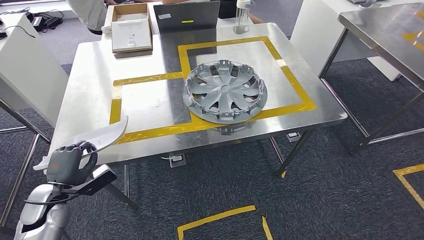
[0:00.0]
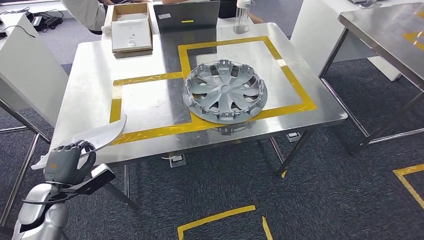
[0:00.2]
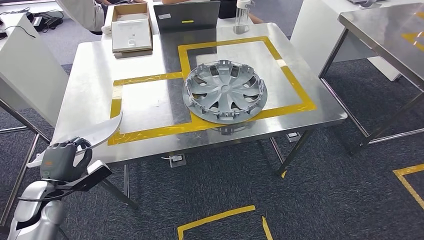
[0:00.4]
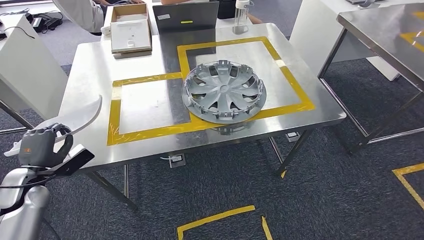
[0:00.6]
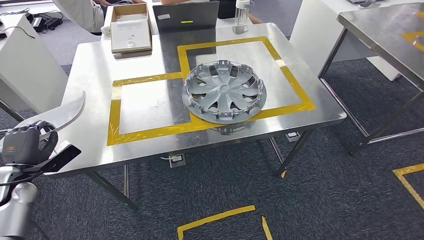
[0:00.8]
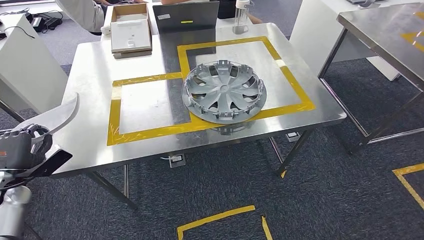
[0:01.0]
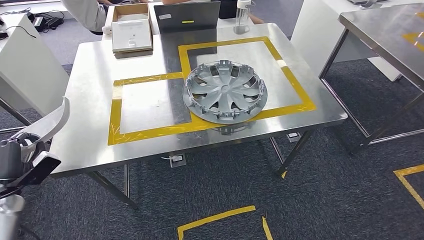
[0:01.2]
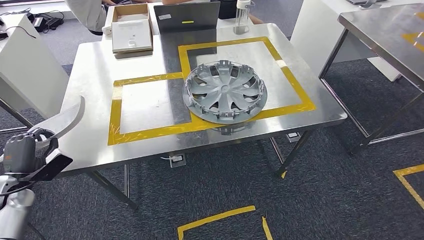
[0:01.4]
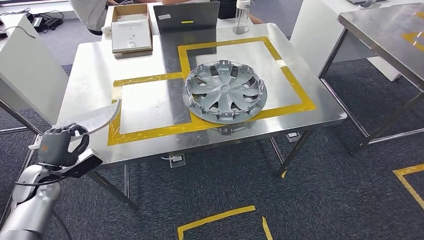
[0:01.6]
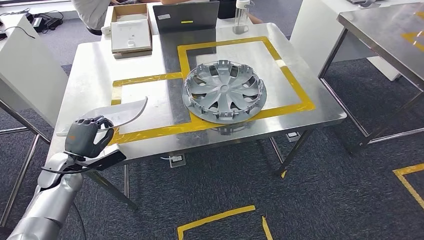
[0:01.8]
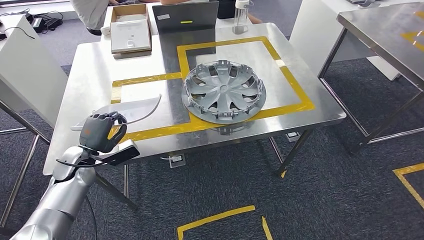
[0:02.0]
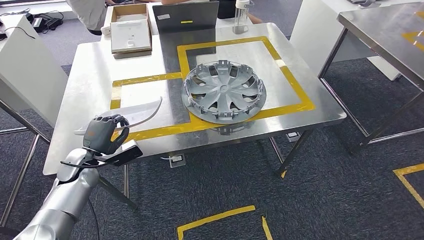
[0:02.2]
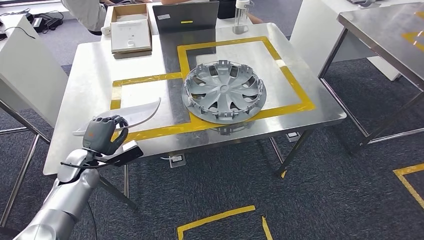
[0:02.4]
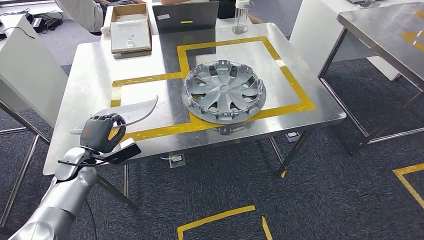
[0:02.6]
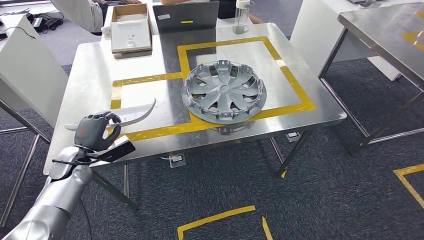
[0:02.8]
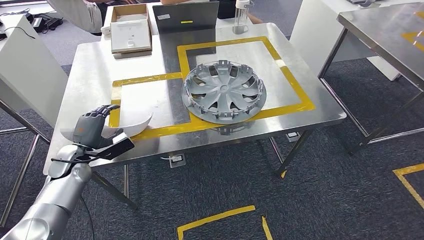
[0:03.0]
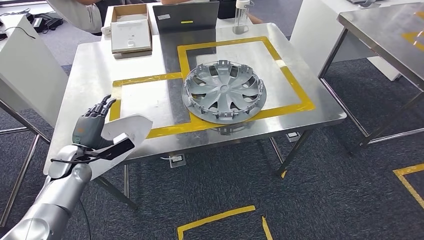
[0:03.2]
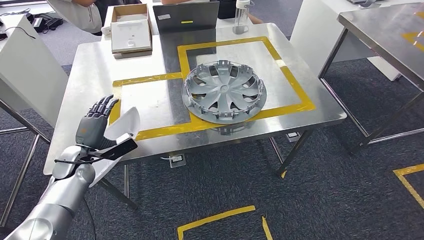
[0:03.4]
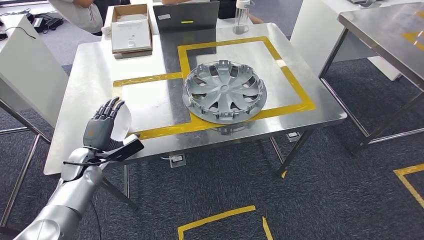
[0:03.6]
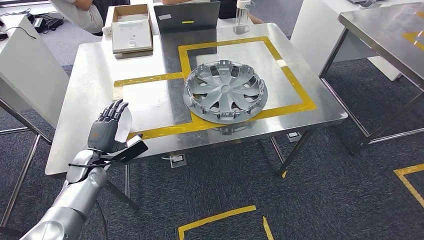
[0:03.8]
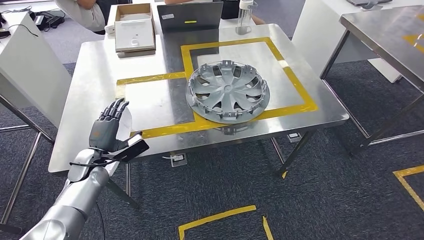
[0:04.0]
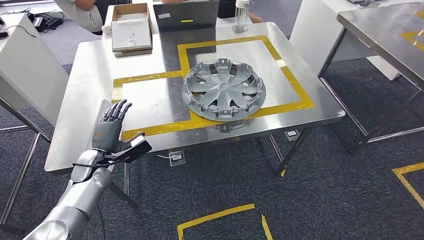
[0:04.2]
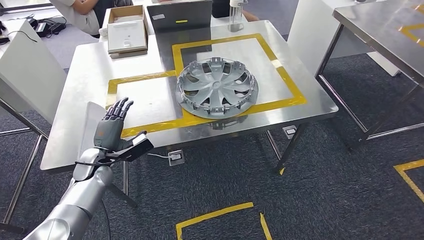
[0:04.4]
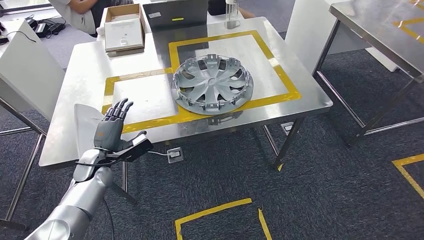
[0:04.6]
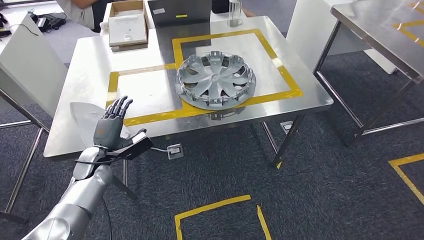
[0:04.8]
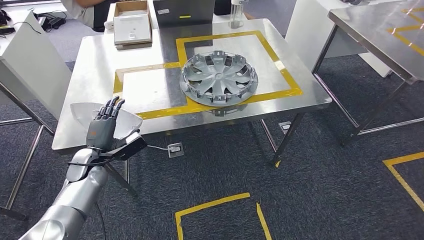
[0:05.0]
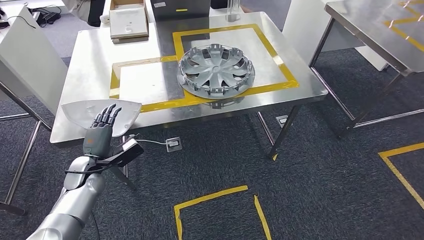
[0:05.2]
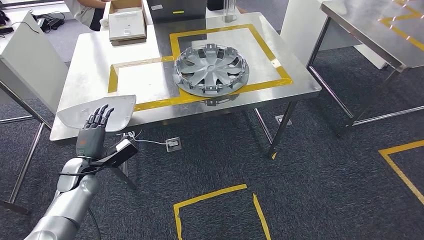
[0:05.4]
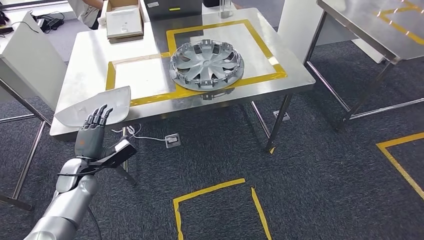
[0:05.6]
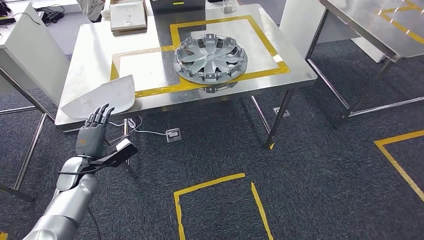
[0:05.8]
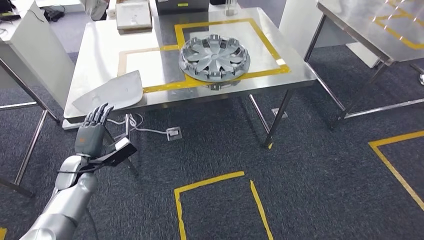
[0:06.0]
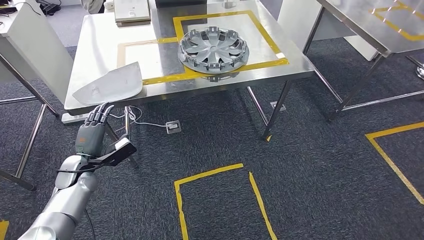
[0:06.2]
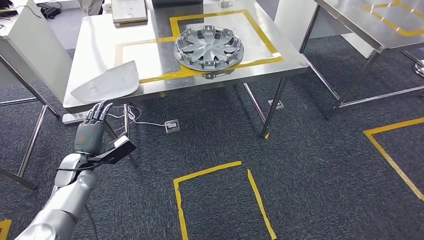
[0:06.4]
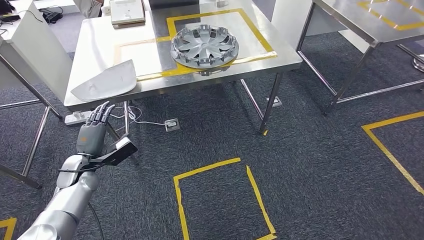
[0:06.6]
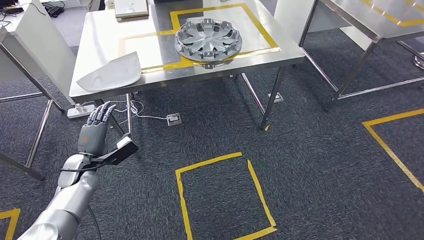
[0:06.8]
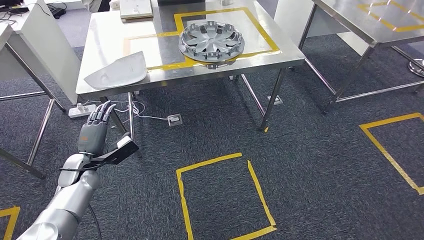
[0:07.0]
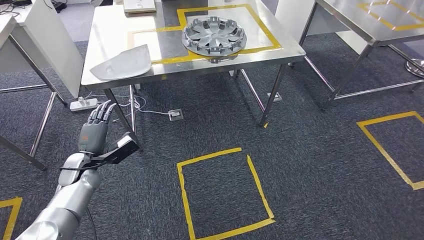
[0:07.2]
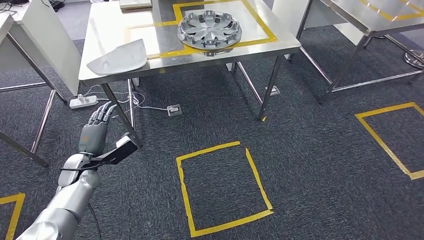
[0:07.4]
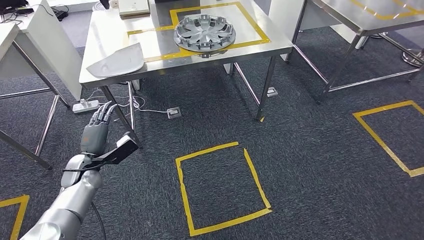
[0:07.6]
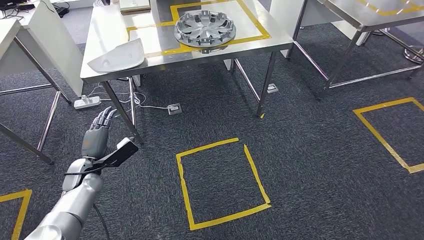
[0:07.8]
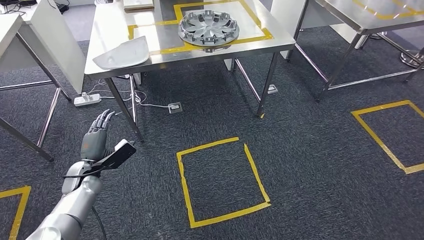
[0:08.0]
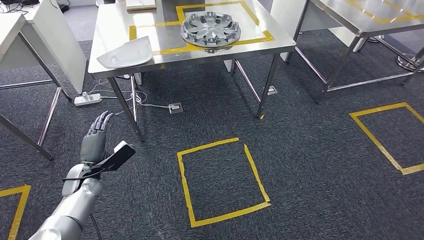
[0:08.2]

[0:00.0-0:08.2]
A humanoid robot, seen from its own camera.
Step, 0:00.0 to 0:05.0: Insert the small component into the corresponding slot on the workbench.
Step, 0:05.4 to 0:08.2: Return to the initial position at the workbench.
0:00.0 to 0:01.6: The left hand heads forward, covering about 5 cm.
0:01.6 to 0:03.2: The left hand shifts approximately 10 cm to the right.

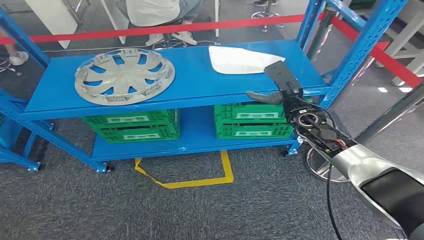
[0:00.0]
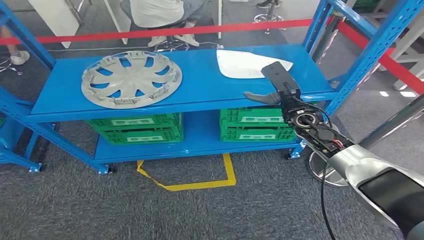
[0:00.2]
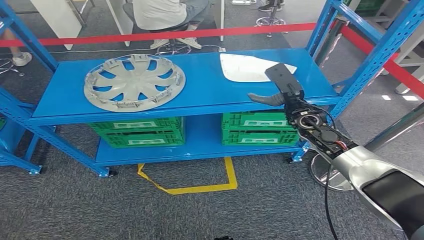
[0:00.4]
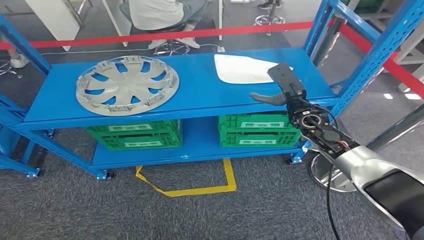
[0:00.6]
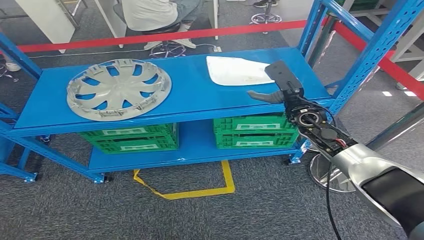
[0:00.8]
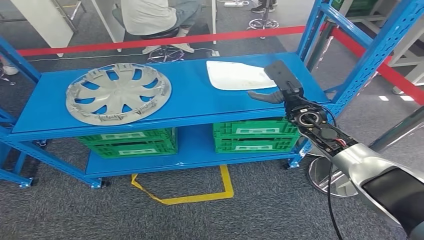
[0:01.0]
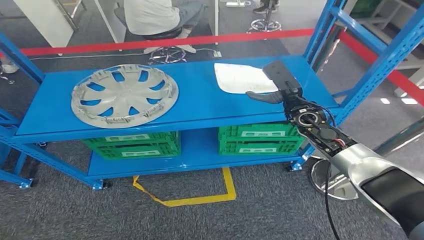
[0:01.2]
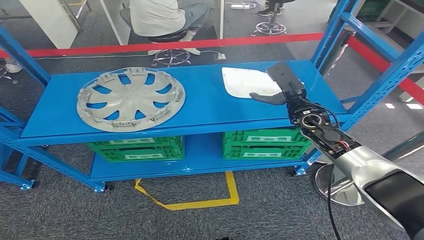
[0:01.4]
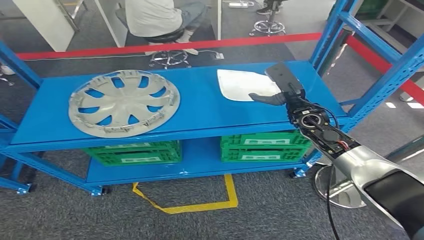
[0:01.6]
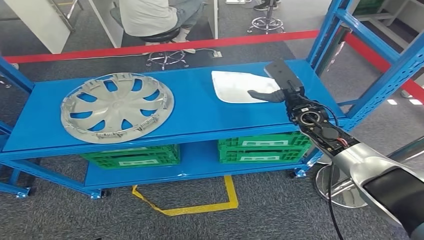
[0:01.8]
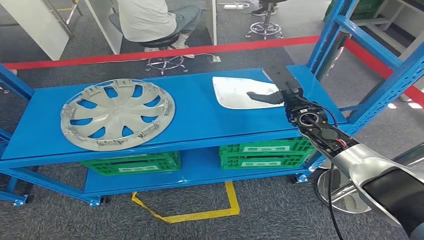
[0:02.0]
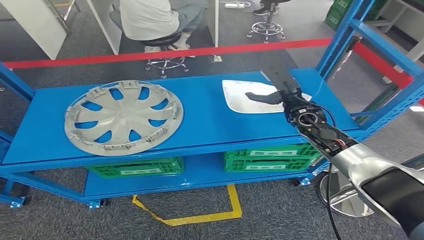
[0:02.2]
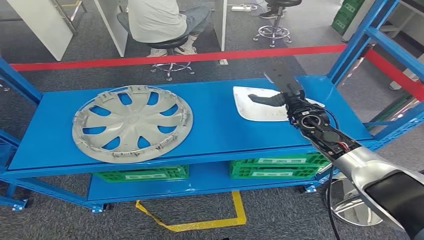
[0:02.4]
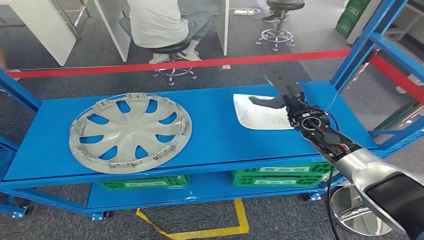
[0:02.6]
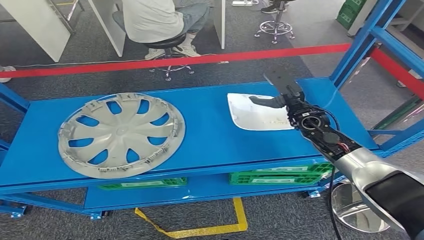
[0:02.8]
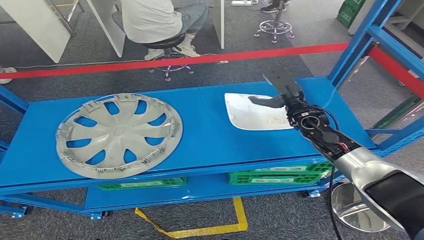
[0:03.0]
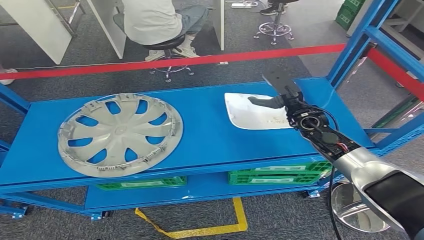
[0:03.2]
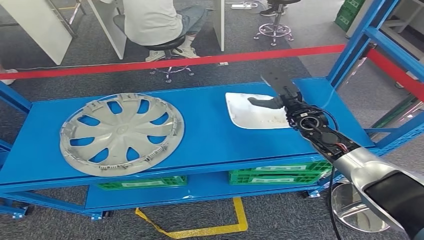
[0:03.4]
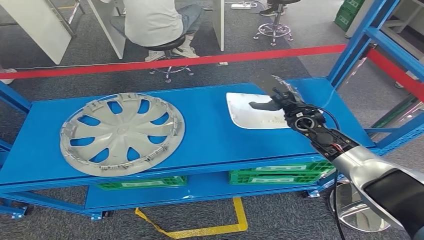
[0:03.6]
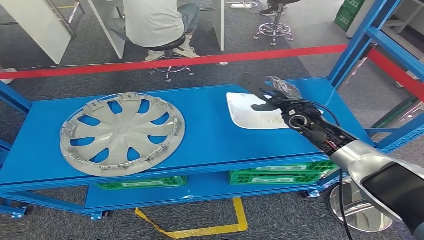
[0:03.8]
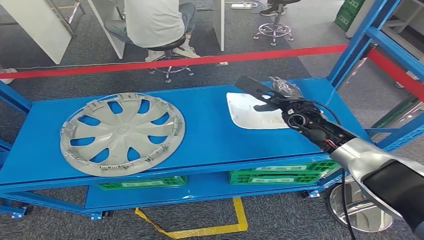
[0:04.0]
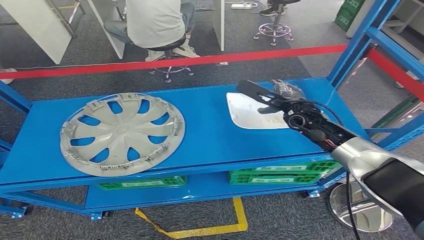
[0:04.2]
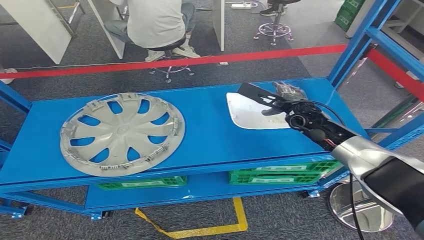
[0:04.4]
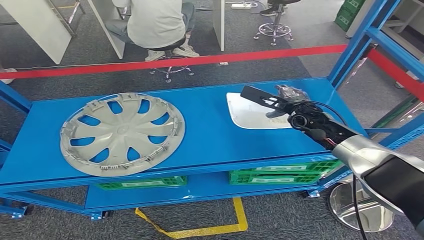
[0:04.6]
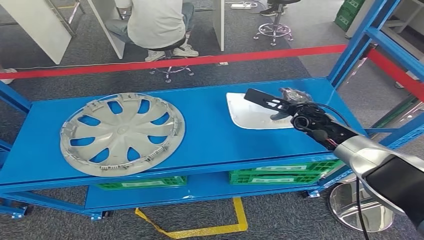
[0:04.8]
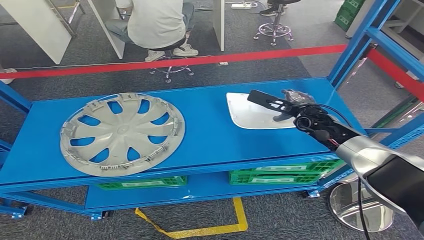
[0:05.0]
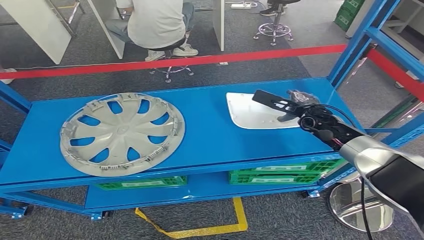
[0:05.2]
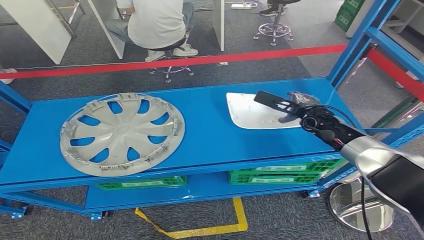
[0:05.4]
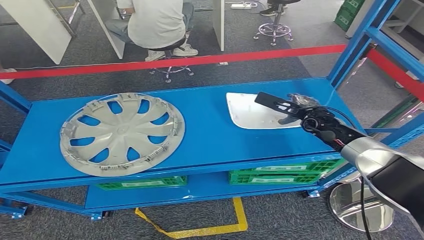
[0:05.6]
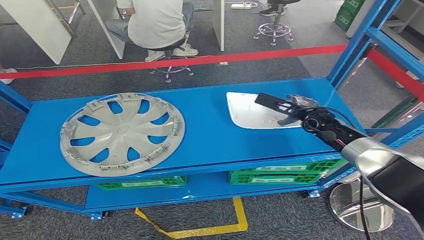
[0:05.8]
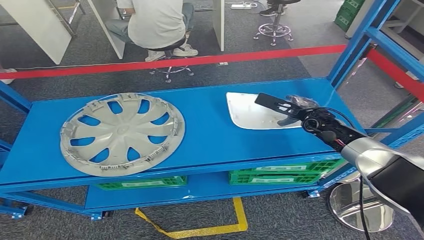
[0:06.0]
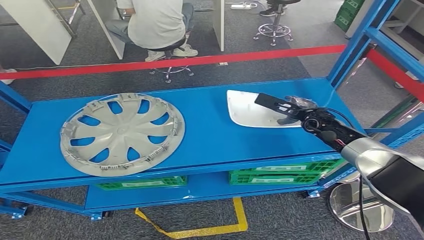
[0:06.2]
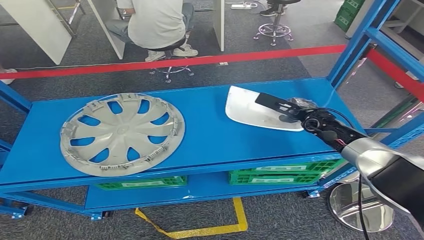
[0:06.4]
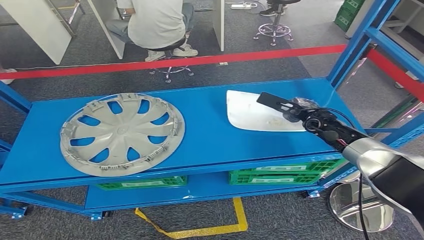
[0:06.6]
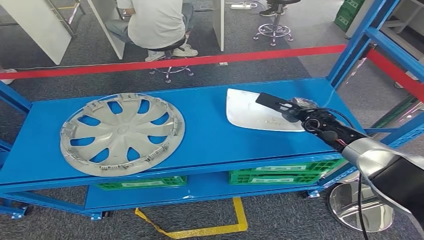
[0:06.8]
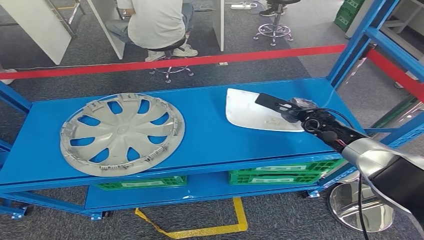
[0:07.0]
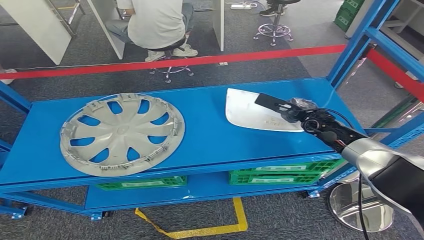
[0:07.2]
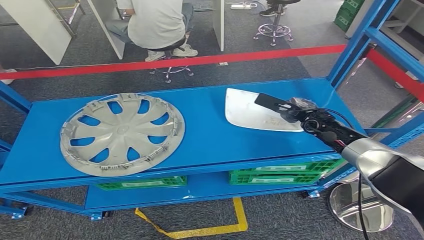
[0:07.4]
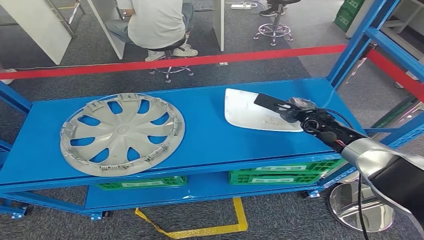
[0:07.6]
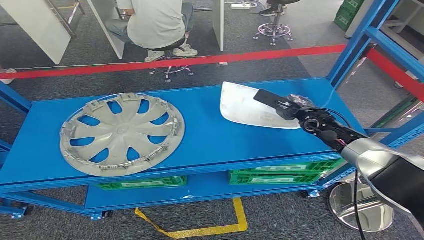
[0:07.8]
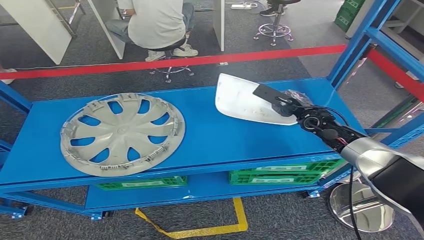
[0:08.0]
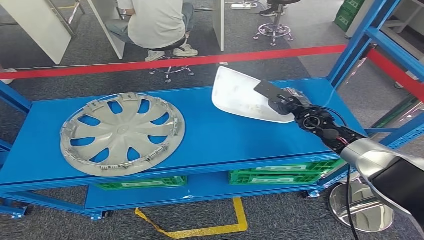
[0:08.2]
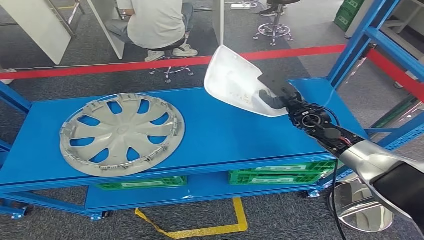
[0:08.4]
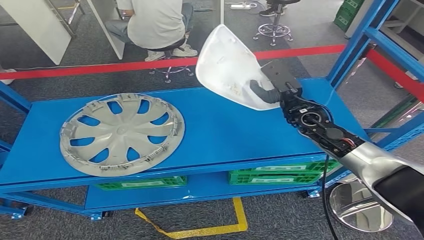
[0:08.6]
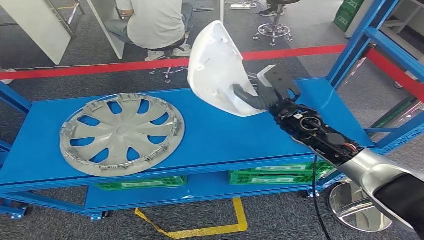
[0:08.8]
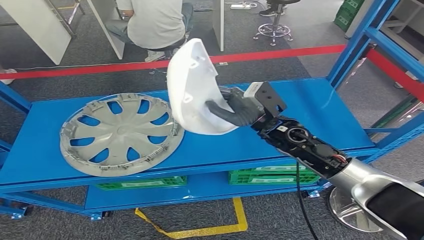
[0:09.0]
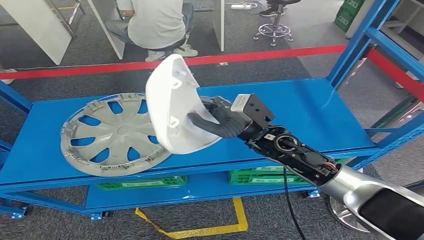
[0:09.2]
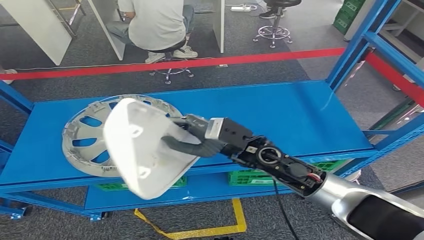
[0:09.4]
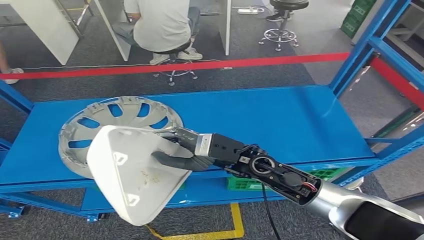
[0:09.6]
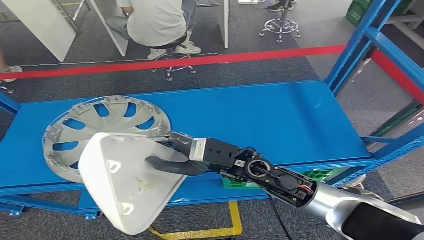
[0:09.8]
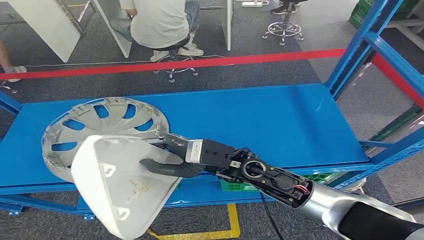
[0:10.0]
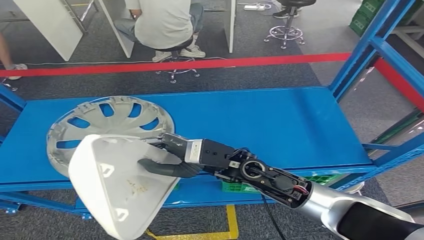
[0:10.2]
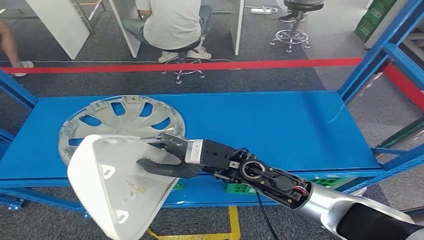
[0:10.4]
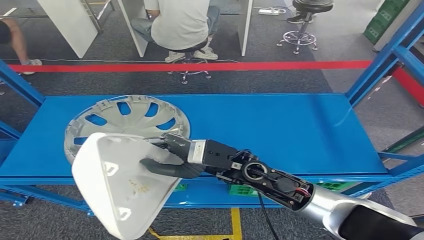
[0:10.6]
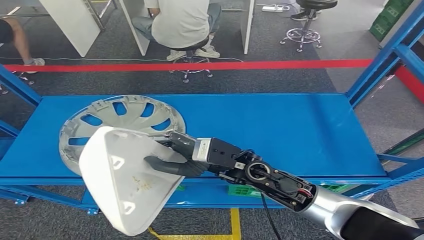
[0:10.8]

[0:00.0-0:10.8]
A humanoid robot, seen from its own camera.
0:04.6 to 0:06.2: The right hand shifts by about 5 cm.
0:06.2 to 0:07.8: There are only small adjustments of the hands.
0:07.8 to 0:09.2: The right hand moves to the left and backward, about 15 cm.
